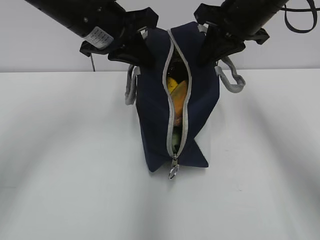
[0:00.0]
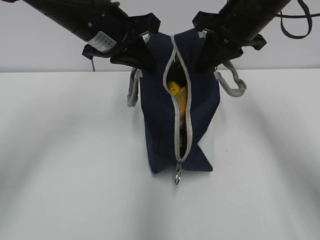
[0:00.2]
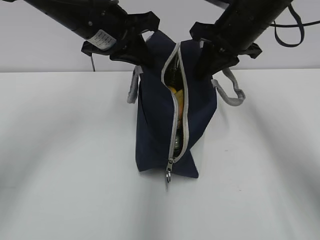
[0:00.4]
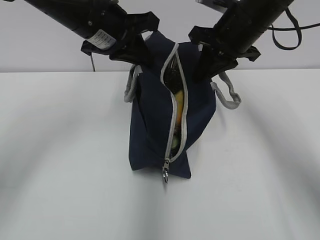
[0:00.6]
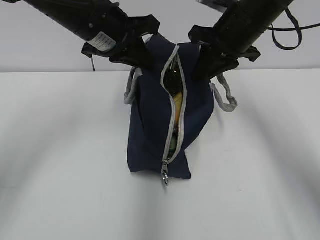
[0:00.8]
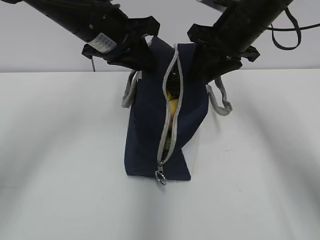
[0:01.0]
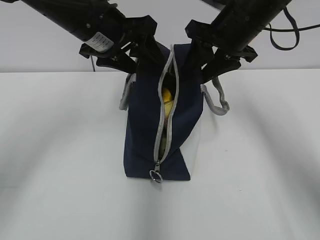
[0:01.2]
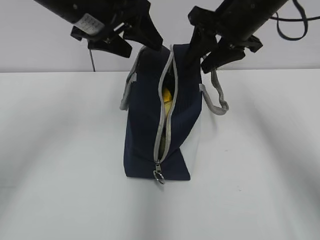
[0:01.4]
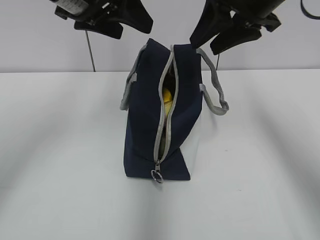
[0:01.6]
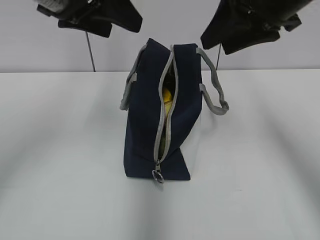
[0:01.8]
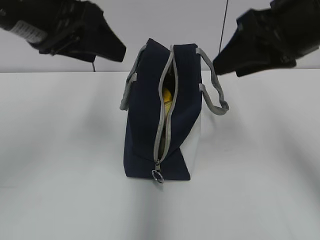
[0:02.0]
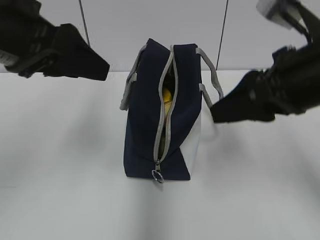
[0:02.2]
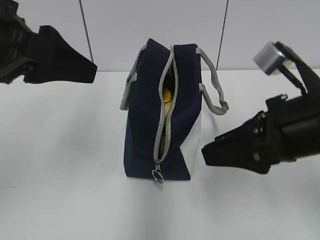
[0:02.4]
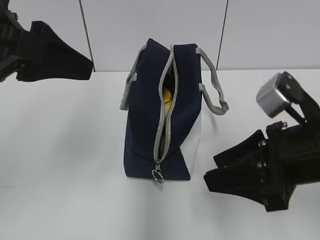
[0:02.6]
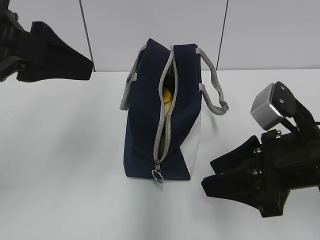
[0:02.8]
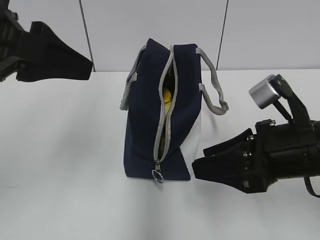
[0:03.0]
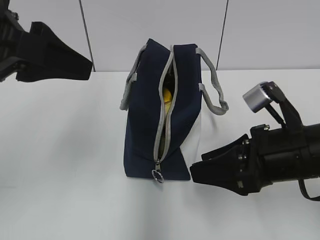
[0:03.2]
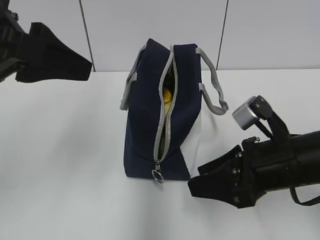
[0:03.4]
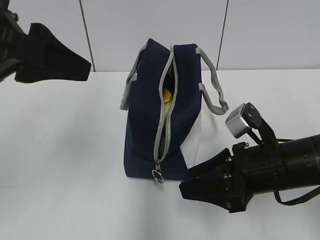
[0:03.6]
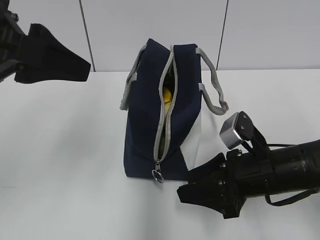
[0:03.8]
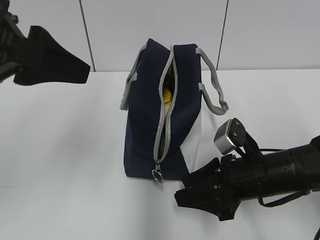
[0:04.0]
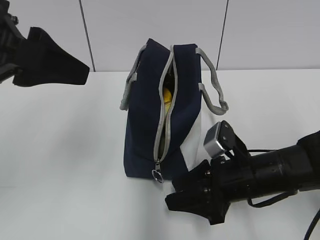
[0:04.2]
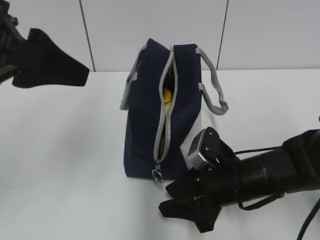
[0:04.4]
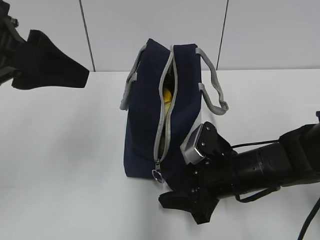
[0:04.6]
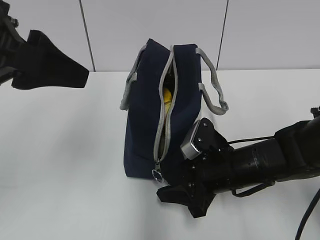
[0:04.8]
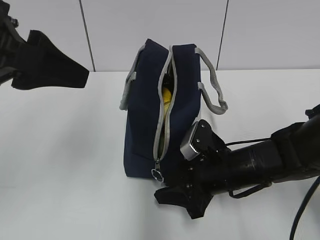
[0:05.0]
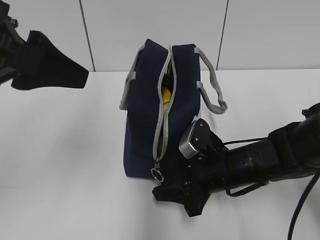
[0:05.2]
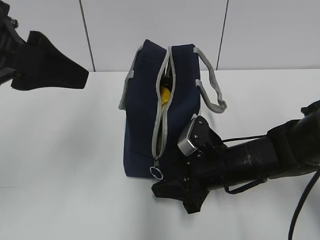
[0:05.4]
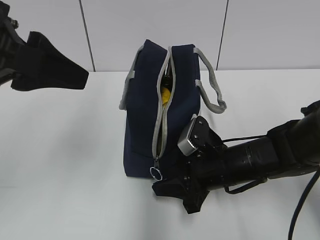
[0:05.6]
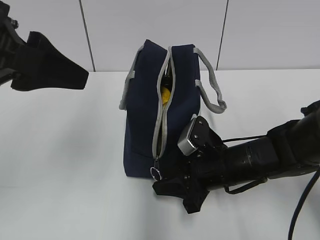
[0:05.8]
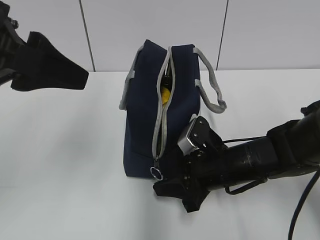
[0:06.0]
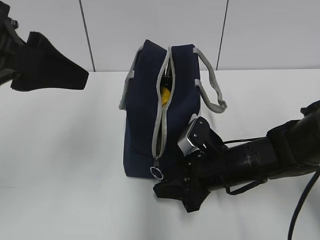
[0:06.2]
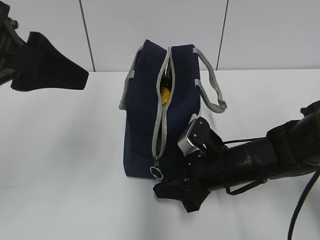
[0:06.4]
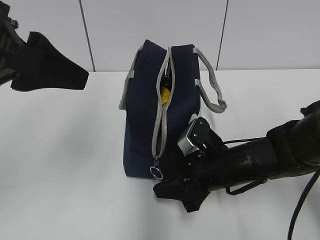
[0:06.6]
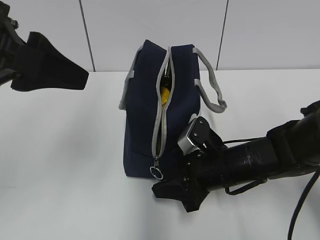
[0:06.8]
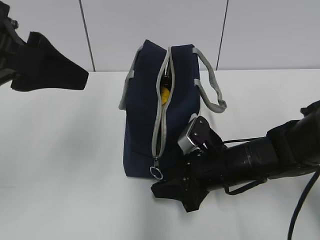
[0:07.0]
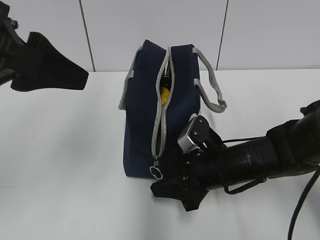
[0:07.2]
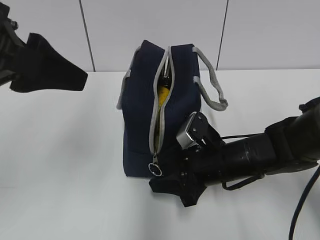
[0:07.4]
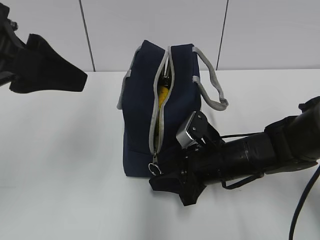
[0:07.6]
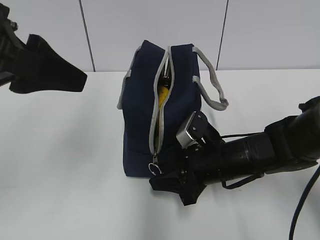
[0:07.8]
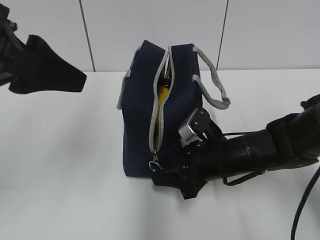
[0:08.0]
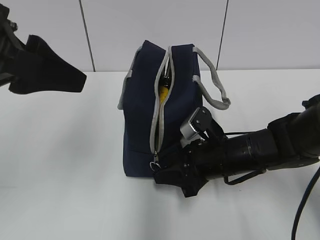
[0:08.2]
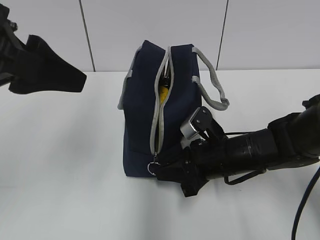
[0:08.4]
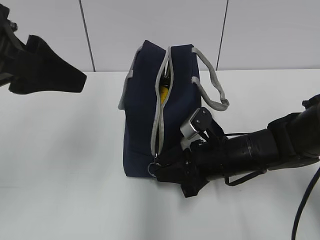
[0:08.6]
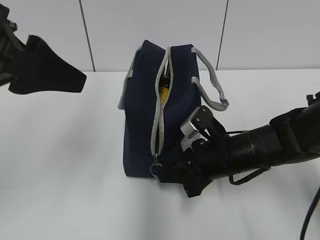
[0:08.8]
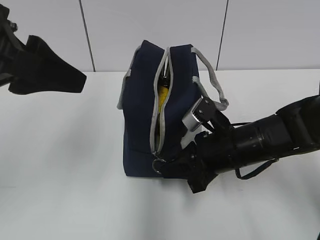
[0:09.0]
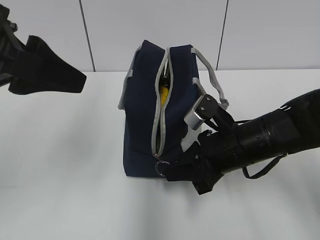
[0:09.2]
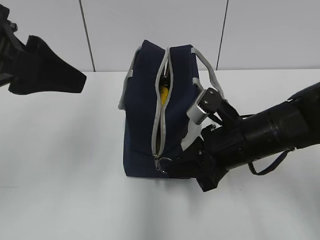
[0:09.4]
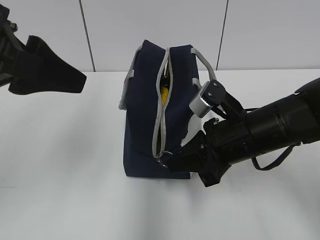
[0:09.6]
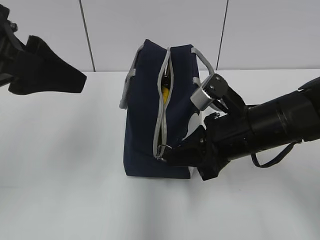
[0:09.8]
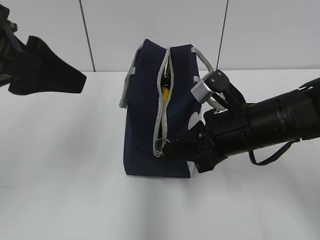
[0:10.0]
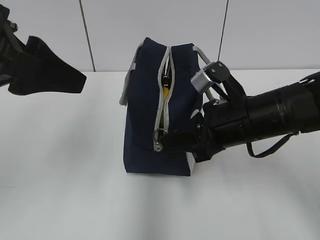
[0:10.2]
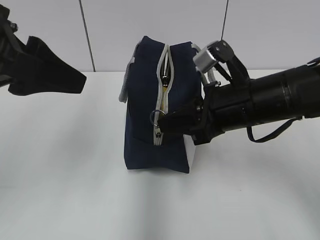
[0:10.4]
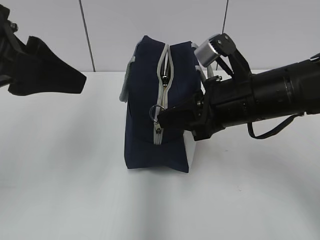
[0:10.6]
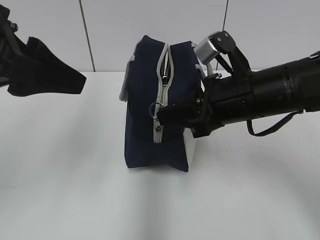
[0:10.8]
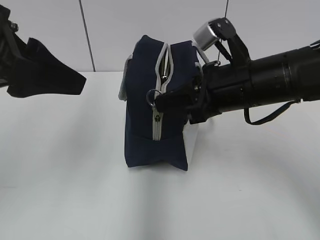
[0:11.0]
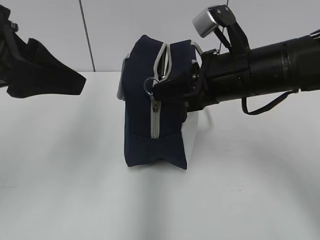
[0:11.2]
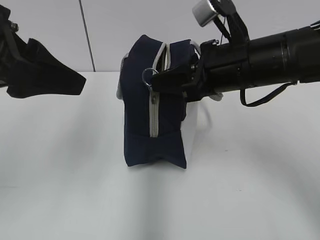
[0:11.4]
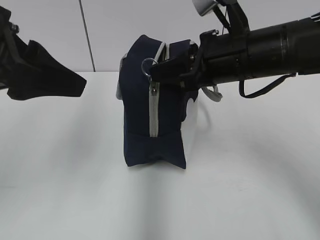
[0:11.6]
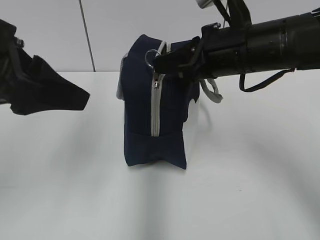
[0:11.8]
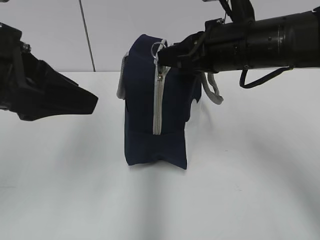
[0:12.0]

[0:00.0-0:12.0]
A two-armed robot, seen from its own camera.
0:00.0 to 0:01.6: The left gripper shifts by about 5 cm, and opens its fingers. Meanwhile the right gripper opens its fingers.
0:01.6 to 0:03.0: The left gripper heads backward and to the left, covering approximately 15 cm; the right gripper goes approximately 20 cm backward and downward.
0:03.0 to 0:04.4: The right gripper heads downward, covering some 10 cm.
0:04.4 to 0:06.0: The grippers stay close to where they were, moving slightly.
0:06.0 to 0:07.6: Both grippers stay put.
0:07.6 to 0:09.0: The right gripper closes.
0:09.0 to 0:10.4: The right gripper is displaced upward by some 10 cm.
0:10.4 to 0:12.0: The right gripper heads upward, covering some 5 cm.

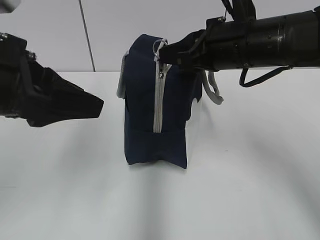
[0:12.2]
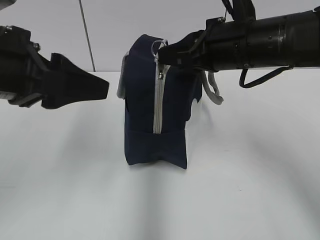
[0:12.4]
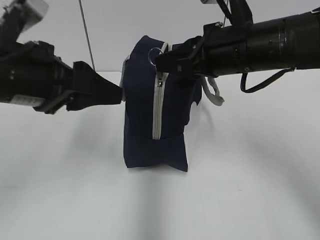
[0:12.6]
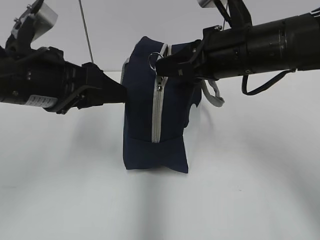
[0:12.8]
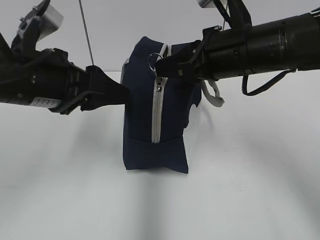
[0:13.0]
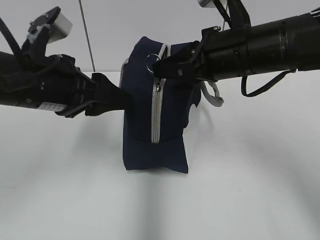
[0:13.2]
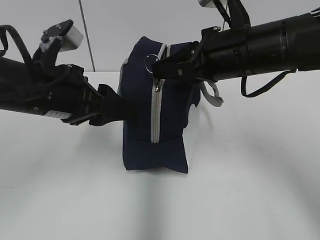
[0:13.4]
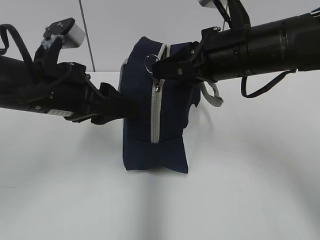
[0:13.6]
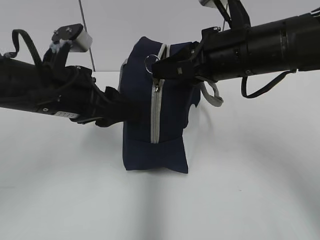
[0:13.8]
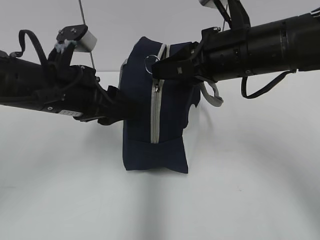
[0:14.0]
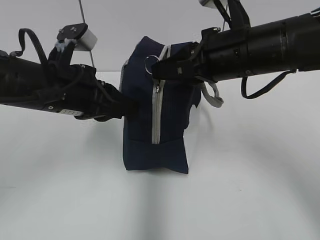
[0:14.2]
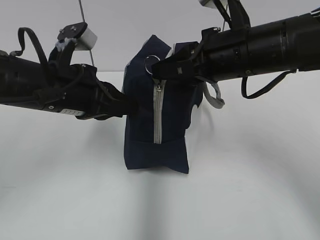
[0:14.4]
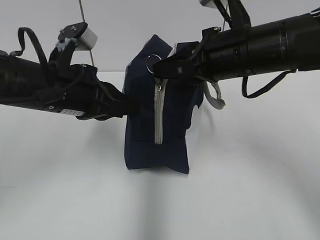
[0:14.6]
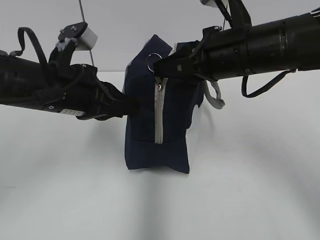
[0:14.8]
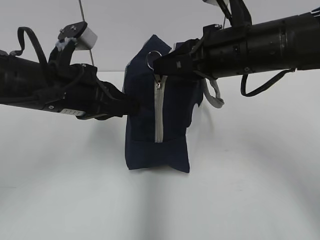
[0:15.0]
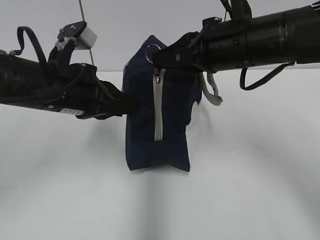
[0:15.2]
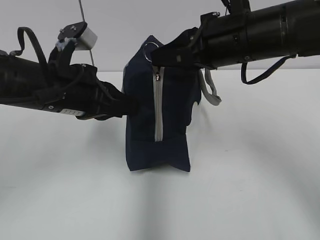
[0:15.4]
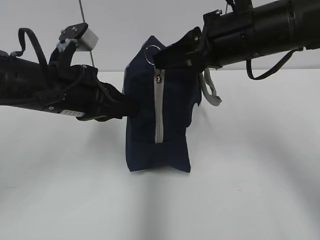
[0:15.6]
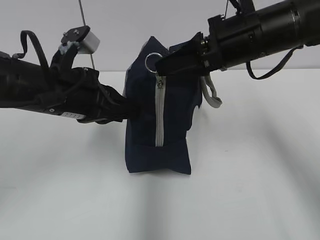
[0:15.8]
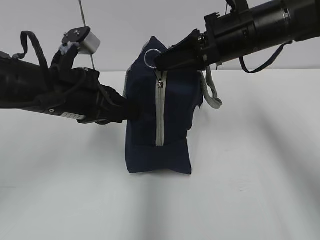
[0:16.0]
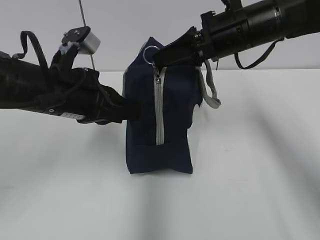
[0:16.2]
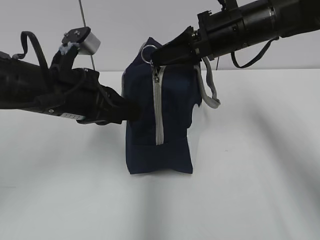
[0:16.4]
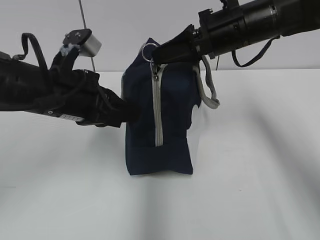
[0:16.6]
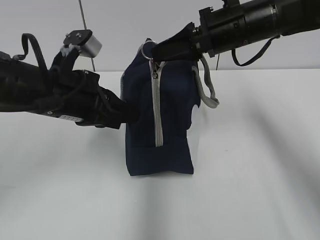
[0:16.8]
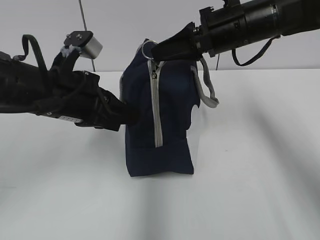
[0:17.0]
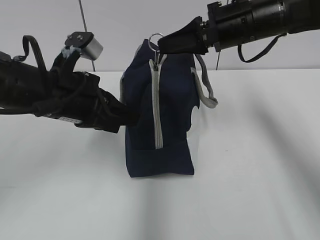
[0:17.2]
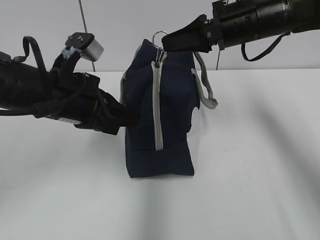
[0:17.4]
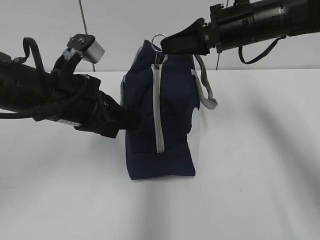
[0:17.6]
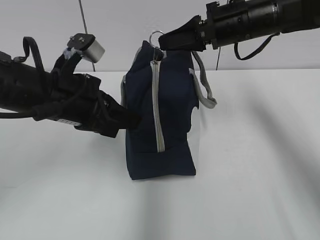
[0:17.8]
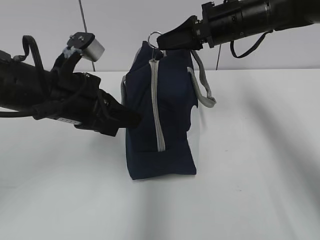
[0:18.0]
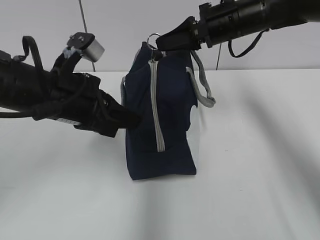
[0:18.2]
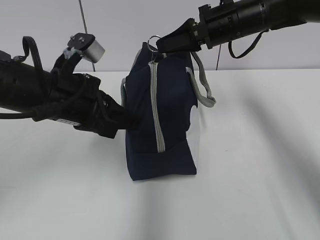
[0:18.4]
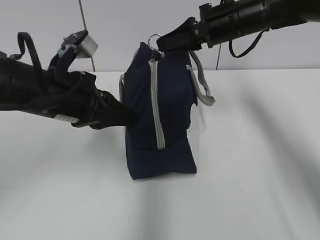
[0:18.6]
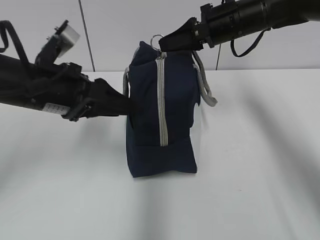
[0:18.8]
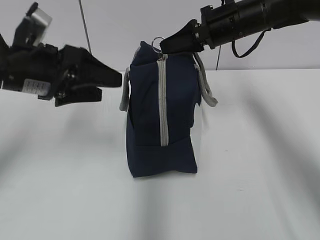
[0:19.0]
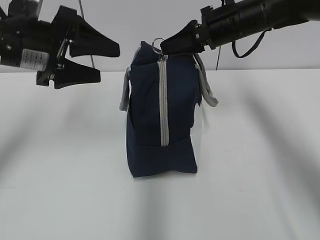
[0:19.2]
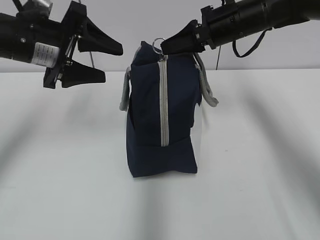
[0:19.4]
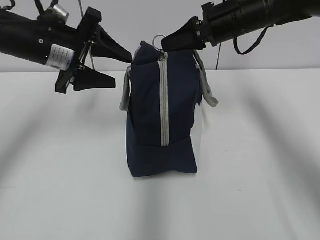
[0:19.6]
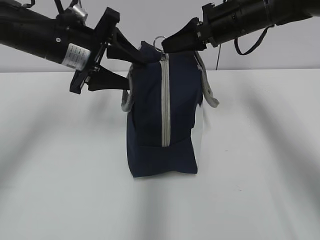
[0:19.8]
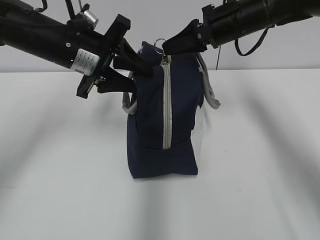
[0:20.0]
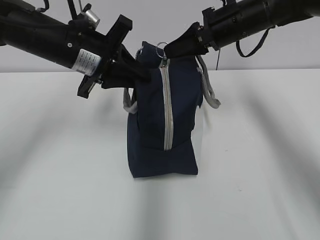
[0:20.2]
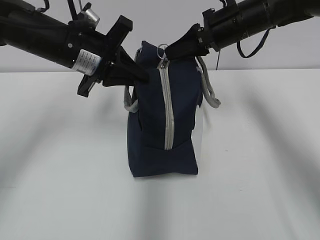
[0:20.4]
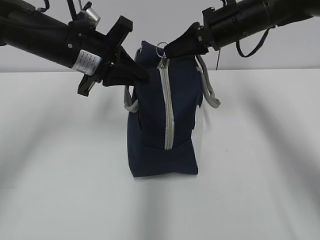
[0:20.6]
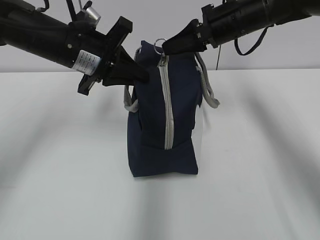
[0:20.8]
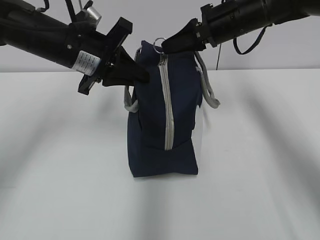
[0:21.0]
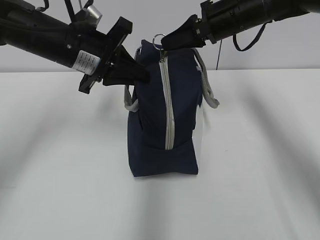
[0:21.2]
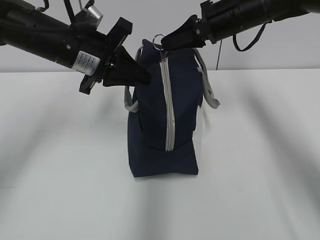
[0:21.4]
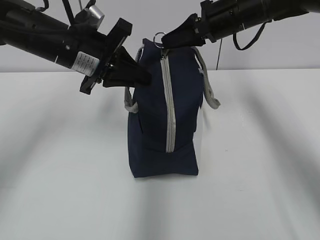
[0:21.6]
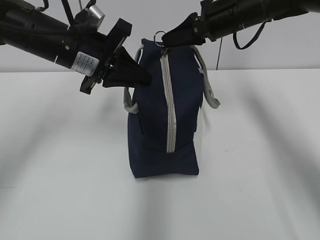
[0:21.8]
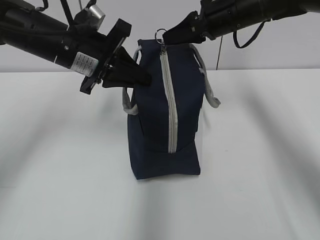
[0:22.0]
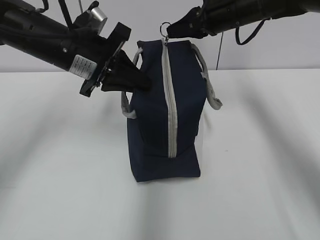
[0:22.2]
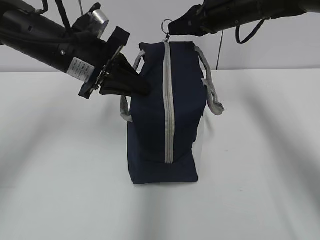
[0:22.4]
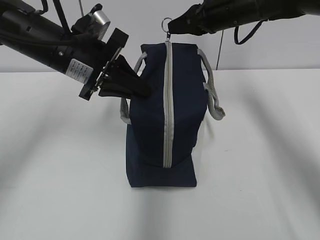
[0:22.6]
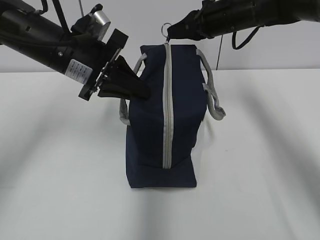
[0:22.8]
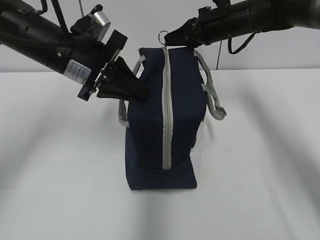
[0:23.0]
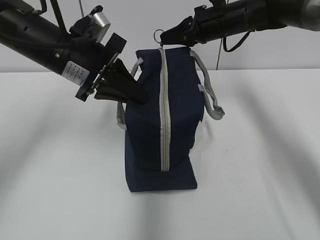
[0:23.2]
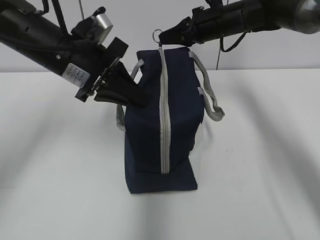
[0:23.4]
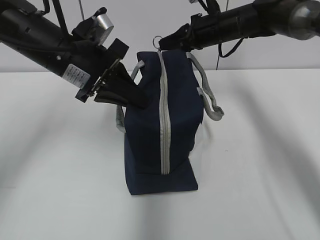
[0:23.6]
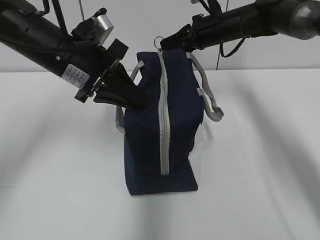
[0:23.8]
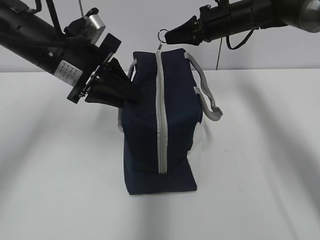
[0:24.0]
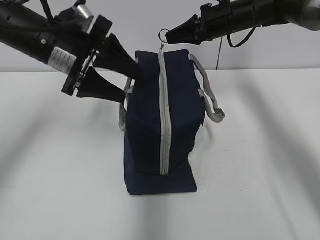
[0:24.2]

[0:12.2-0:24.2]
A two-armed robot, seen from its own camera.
0:12.2 to 0:13.8: The left gripper heads downward and forward, covering some 10 cm.
0:13.8 to 0:15.2: The left gripper closes.
0:15.2 to 0:16.6: The right gripper is displaced forward by approximately 5 cm.
0:16.6 to 0:18.2: The right gripper goes about 5 cm forward.
0:18.2 to 0:19.8: The left gripper goes approximately 10 cm forward, and opens up.
0:19.8 to 0:21.2: The left gripper closes up.
0:21.2 to 0:22.6: The grippers move only a little.
0:22.6 to 0:24.2: The left gripper opens.
